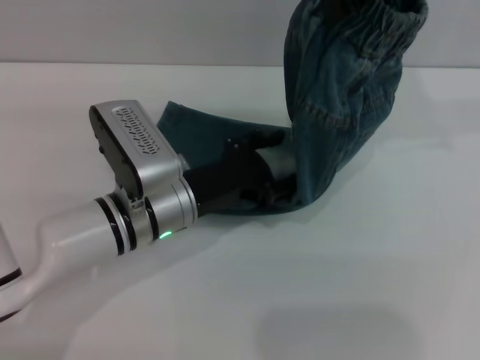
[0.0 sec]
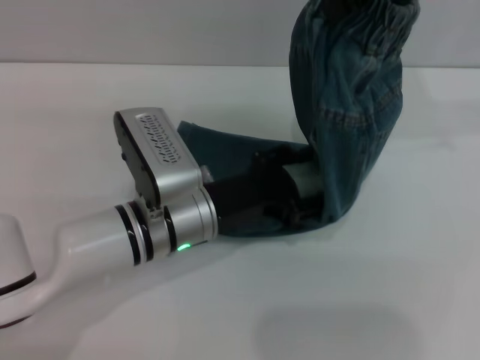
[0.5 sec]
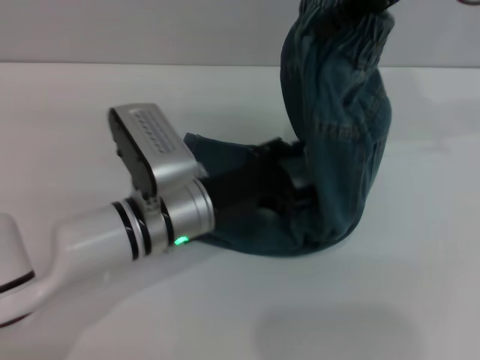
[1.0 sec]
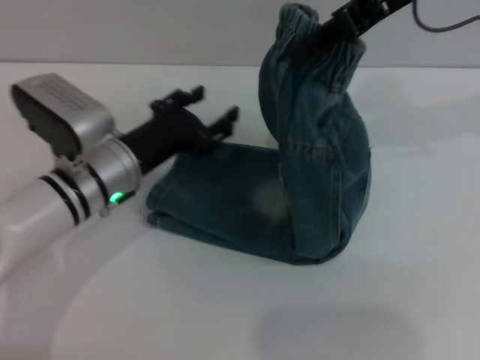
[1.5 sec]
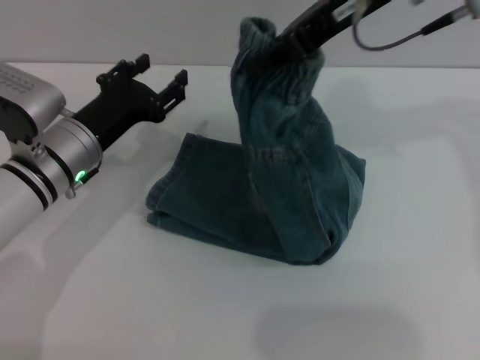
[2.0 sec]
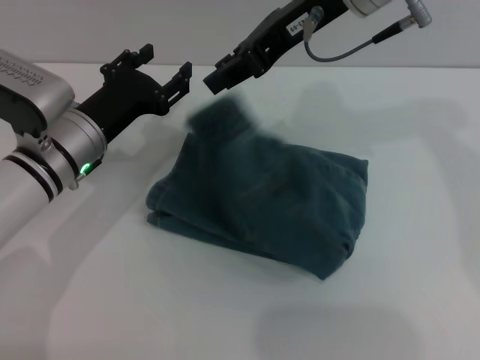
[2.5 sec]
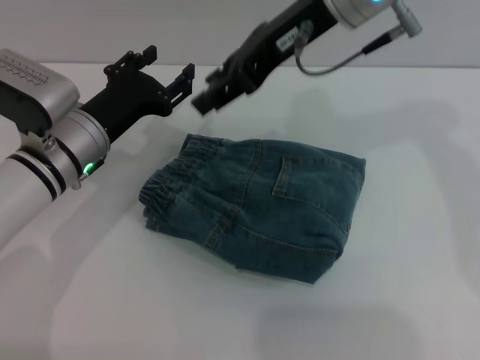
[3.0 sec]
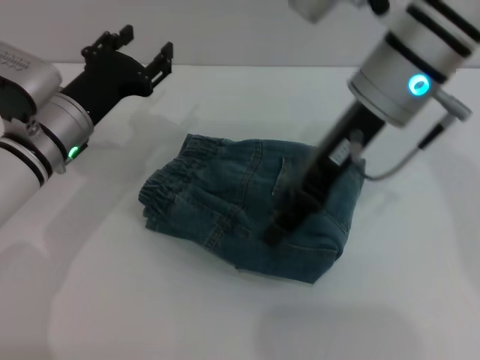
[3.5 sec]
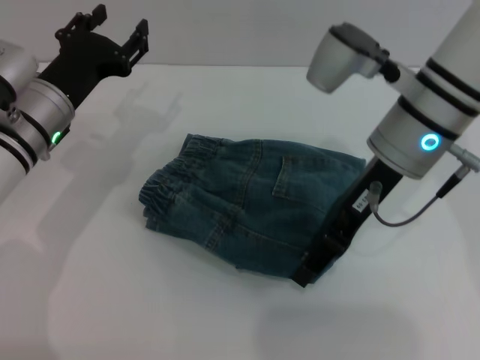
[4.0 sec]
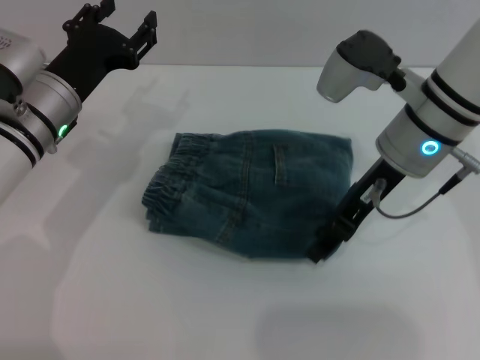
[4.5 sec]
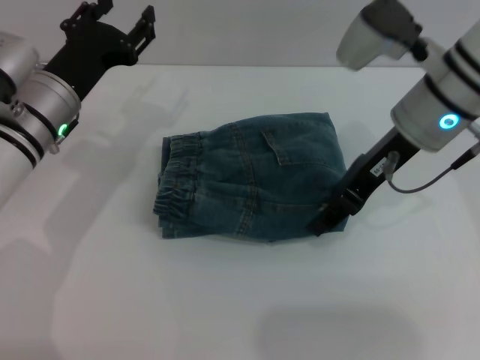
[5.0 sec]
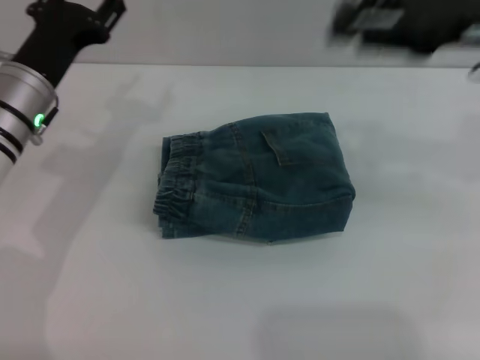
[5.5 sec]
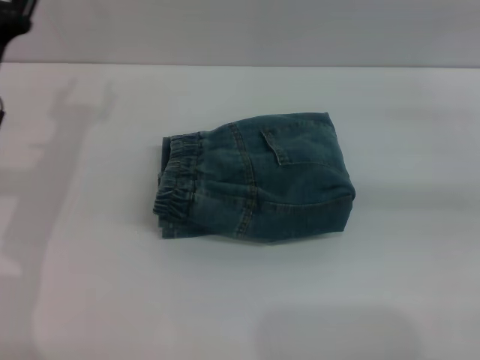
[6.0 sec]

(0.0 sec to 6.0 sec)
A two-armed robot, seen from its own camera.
Step, 0.0 sec - 3.0 sec: Fold the pants from right to left with the right gripper.
Step, 3.5 sec - 5.0 sec: Place the folded trousers onto the center area with the right grippers.
0.0 sec - 2.0 sec: The left gripper travels to the left by about 10 cm. The right gripper moves to the left and downward, roughly 10 cm.
2.0 sec - 4.0 sec: The right gripper moves downward, about 10 cm, and opens its fingers.
4.0 sec - 6.0 sec: The right gripper travels to the right by some 25 cm. The left gripper shifts about 5 cm to the left.

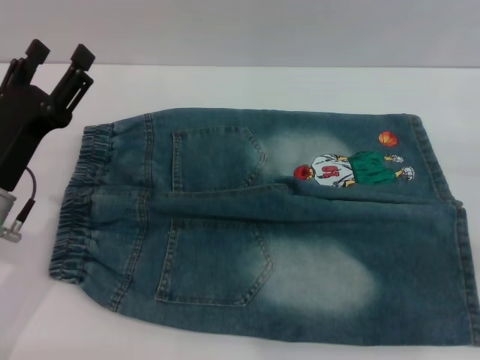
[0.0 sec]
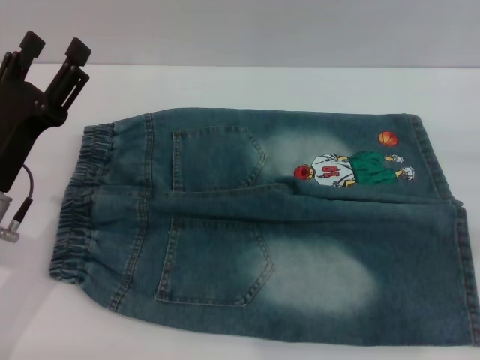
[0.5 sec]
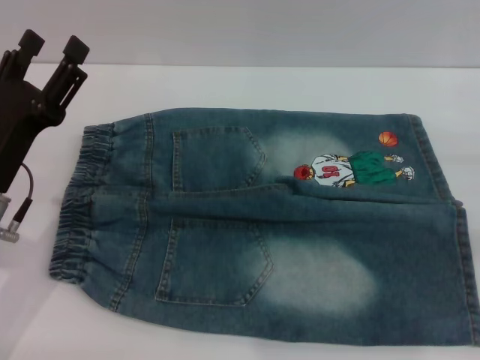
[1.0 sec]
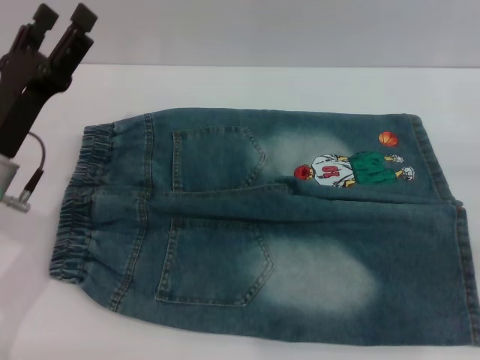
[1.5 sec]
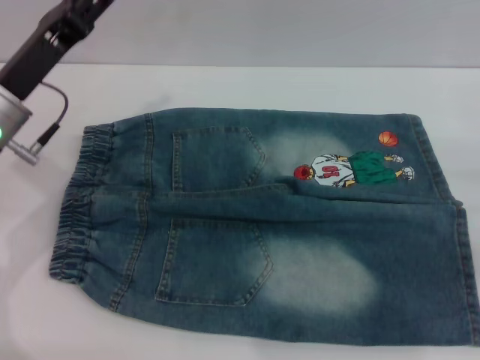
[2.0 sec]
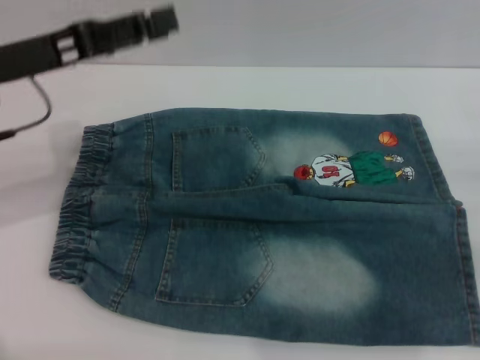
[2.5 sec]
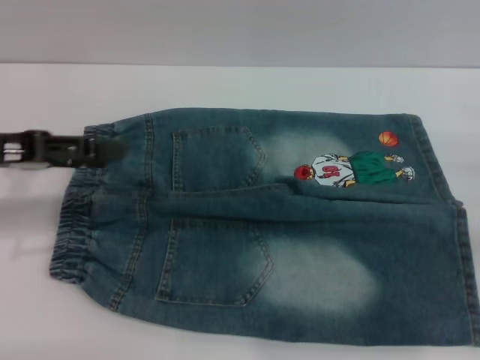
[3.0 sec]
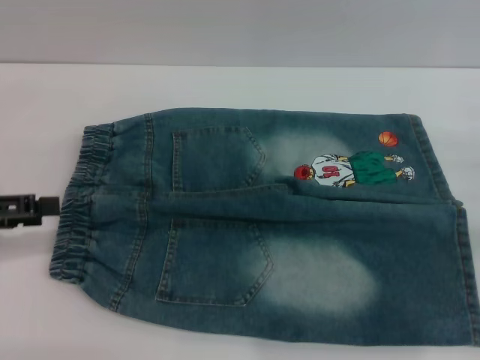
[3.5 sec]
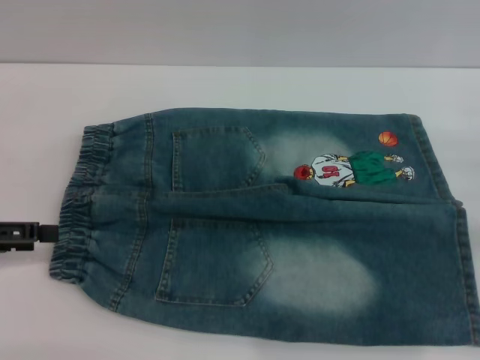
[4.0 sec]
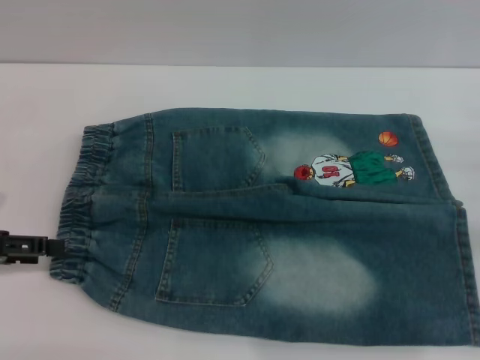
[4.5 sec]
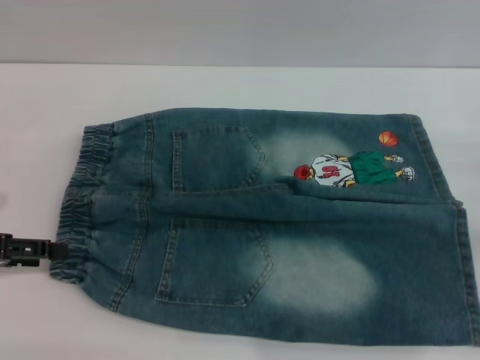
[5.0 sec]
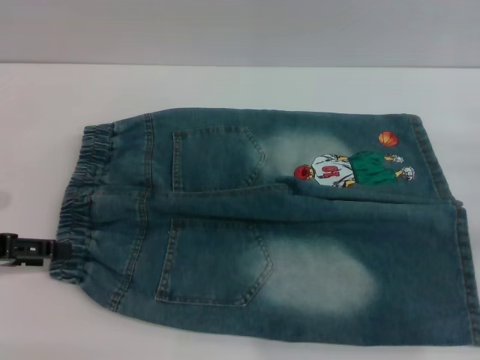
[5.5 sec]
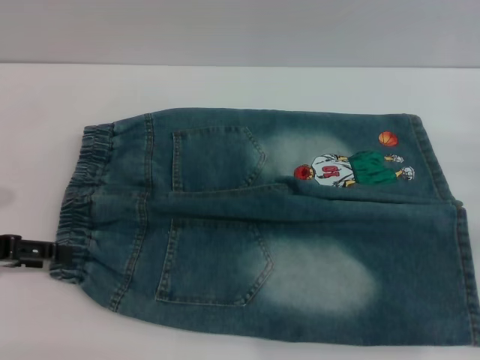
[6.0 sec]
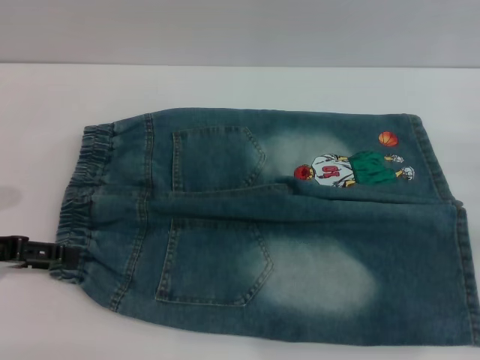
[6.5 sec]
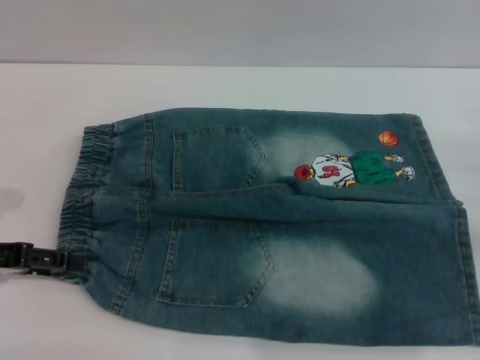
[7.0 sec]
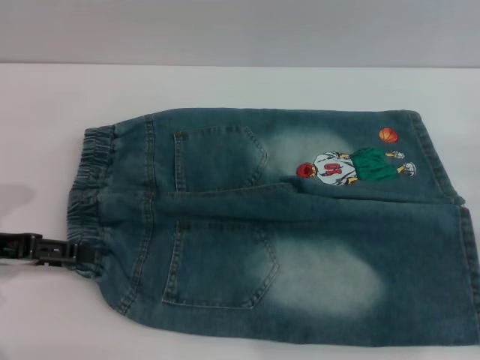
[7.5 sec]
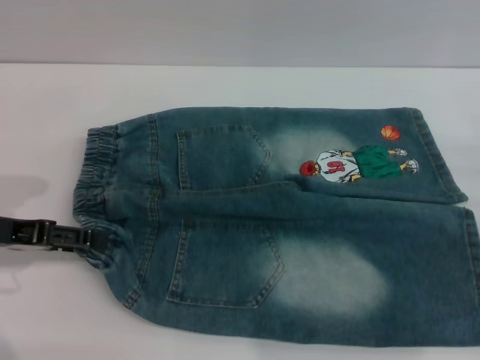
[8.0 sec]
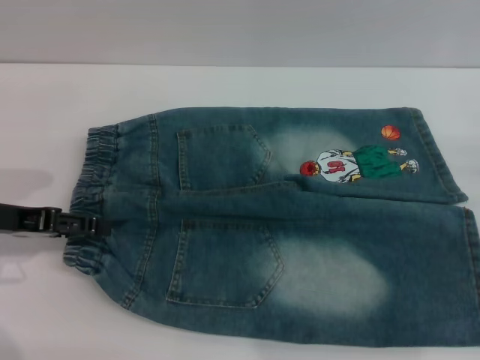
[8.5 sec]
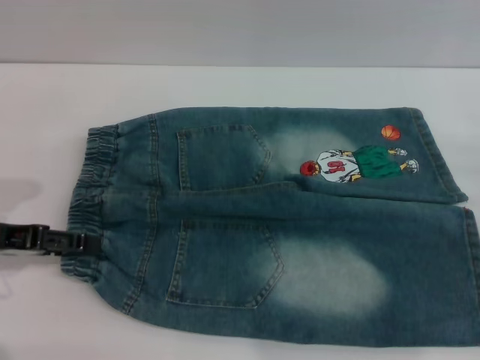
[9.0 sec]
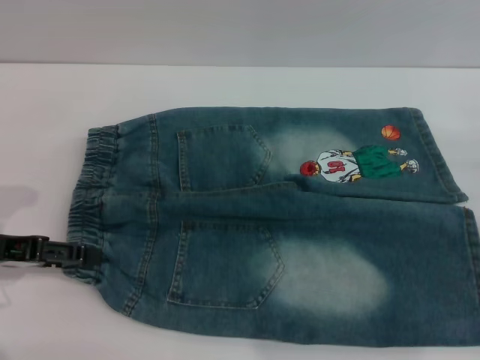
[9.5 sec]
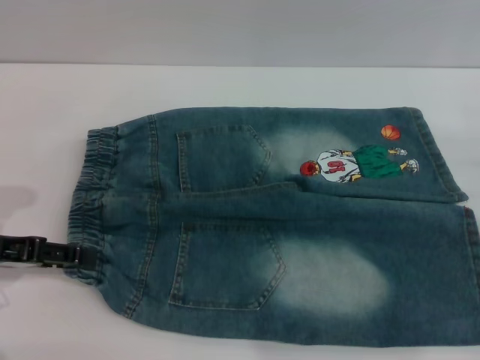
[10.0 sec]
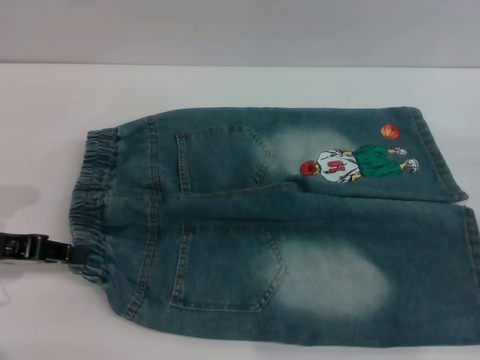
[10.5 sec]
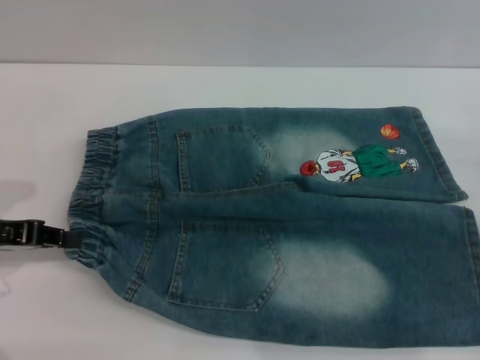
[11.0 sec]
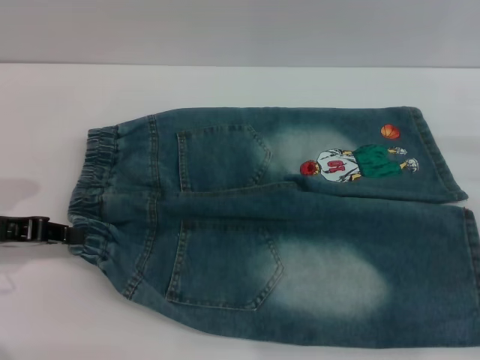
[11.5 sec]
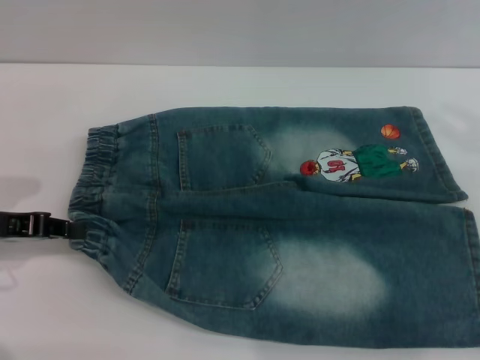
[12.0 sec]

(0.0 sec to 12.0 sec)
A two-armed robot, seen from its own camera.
0.0 sec - 2.0 sec: The left gripper shifts some 10 cm forward and upward.
2.0 sec - 4.0 sec: The left gripper shifts roughly 15 cm to the left and backward.
4.0 sec - 8.0 sec: There are only small adjustments of the grippers.
8.0 sec - 10.0 sec: The grippers make only small movements.
10.0 sec - 12.0 sec: The left gripper closes. The right gripper heads upward, covering approximately 10 cm.

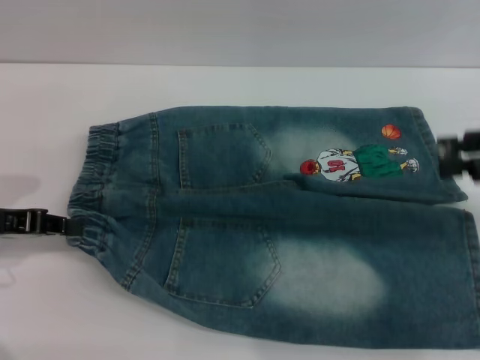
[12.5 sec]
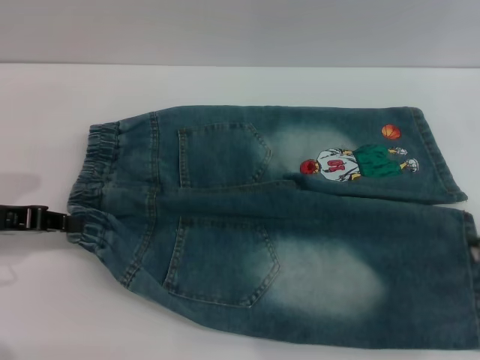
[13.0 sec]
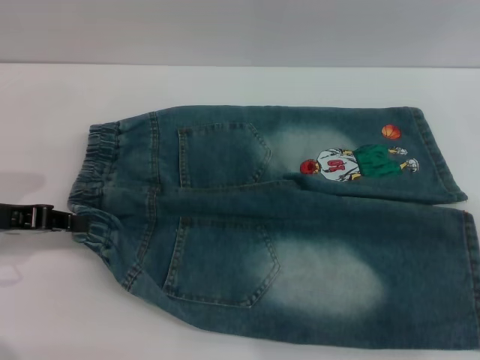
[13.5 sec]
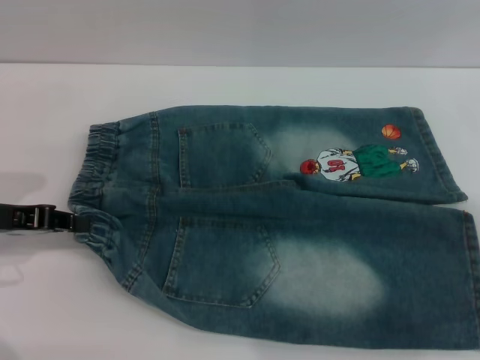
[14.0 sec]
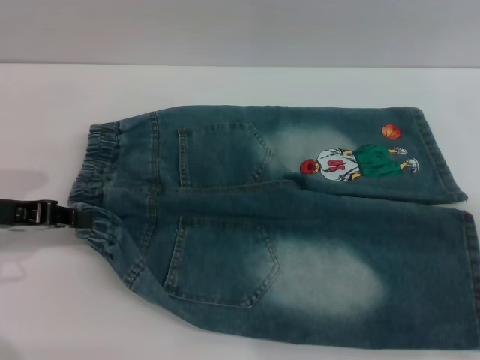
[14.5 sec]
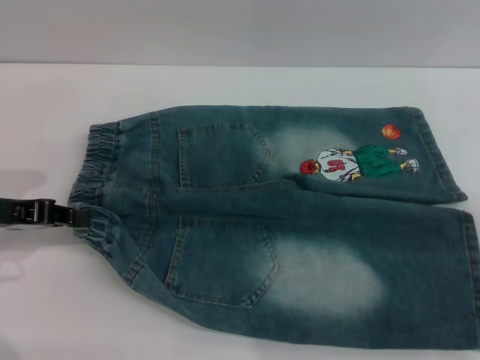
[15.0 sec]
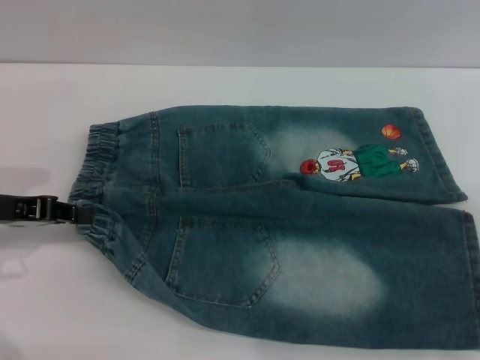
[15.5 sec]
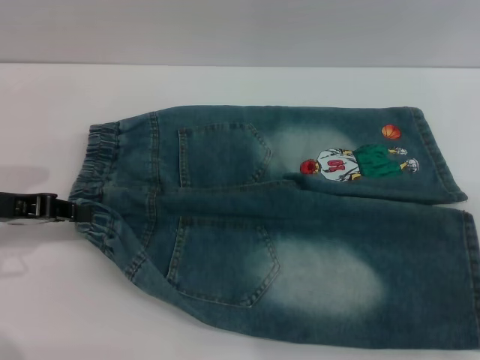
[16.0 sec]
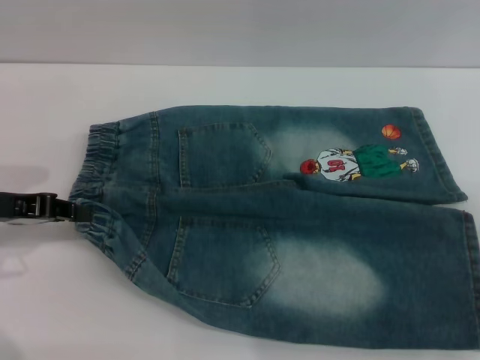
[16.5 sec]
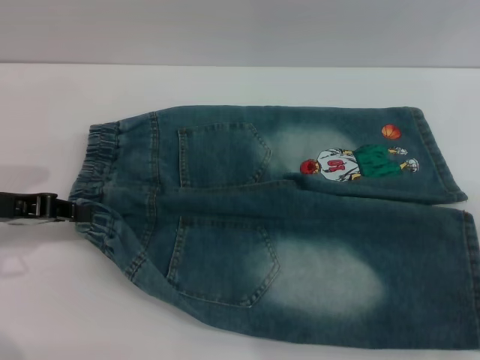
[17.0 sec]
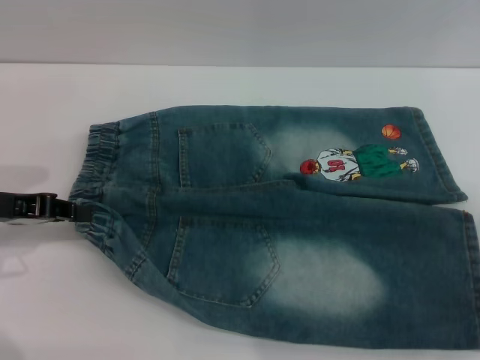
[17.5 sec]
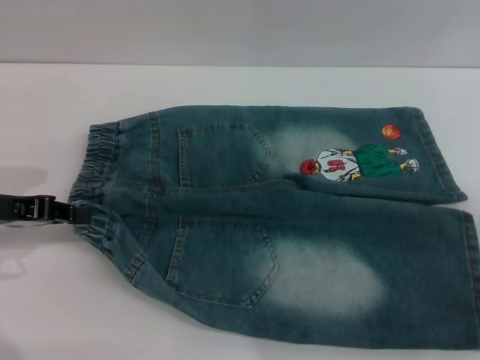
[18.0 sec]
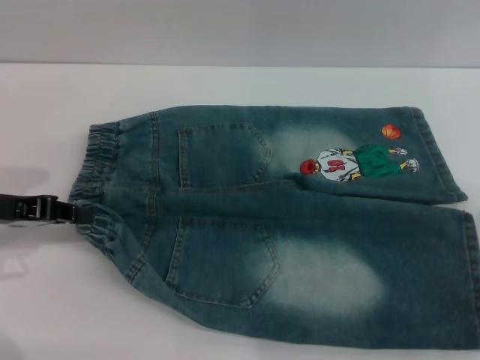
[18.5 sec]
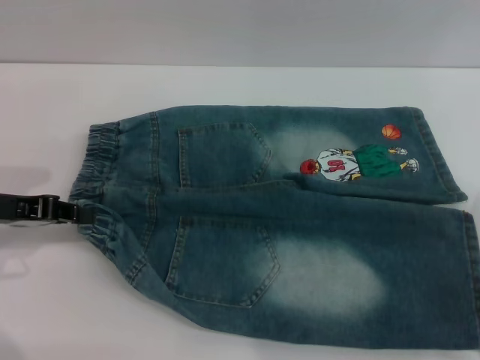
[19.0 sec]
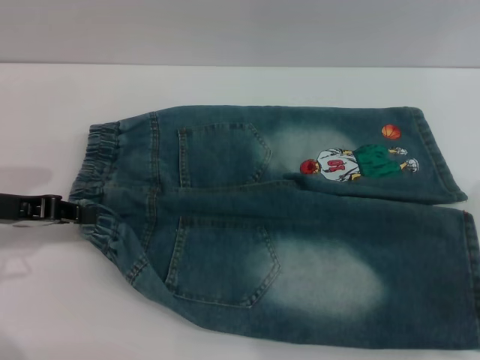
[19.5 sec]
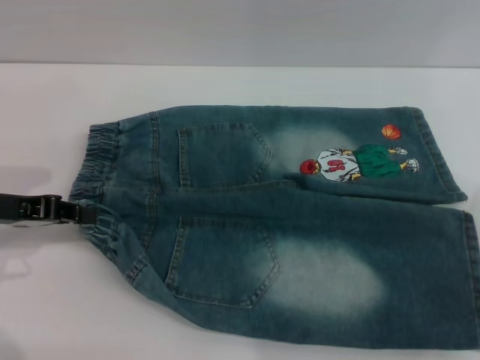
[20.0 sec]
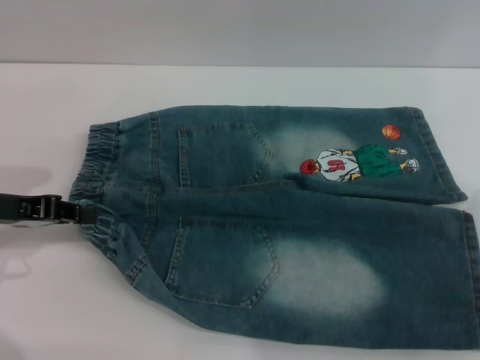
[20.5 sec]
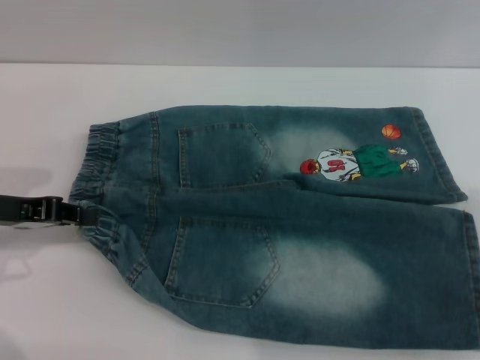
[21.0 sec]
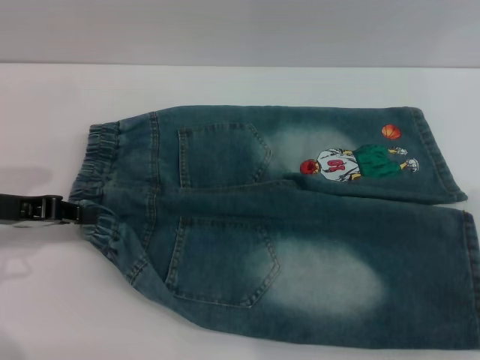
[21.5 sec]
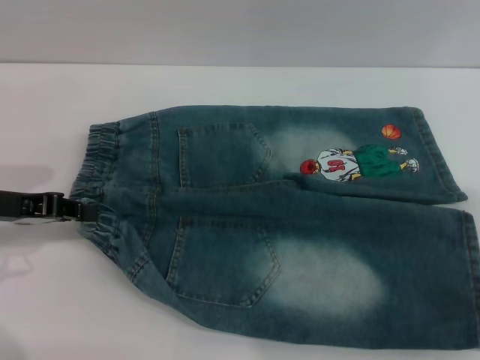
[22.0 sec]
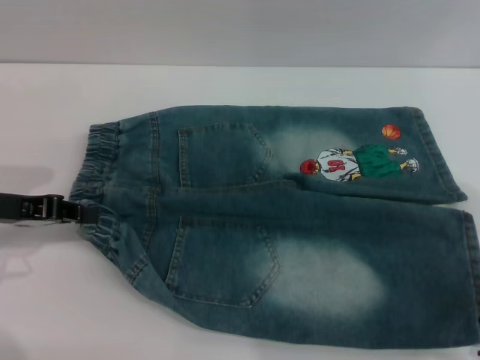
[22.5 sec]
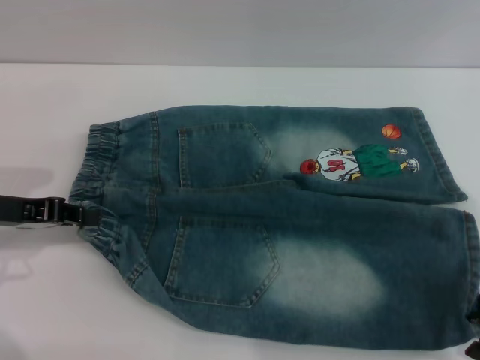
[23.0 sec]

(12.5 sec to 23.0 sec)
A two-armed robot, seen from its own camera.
12.5 sec - 14.5 sec: The right gripper goes roughly 5 cm downward.
14.5 sec - 19.0 sec: The grippers move only a little.
19.0 sec - 21.0 sec: The two grippers keep their place.
